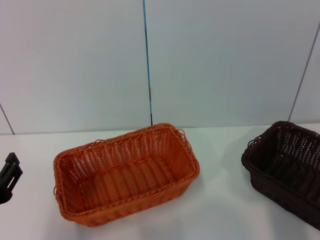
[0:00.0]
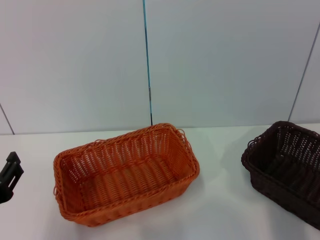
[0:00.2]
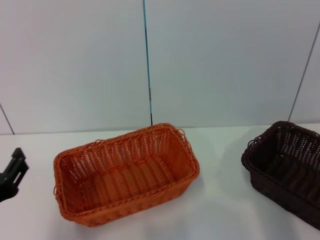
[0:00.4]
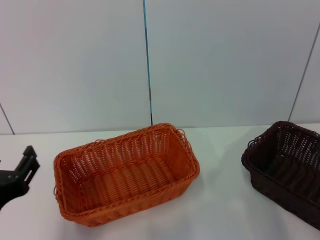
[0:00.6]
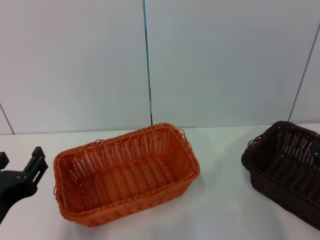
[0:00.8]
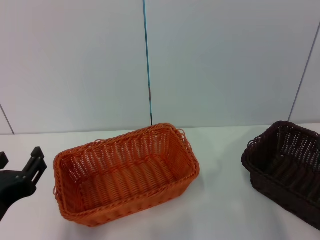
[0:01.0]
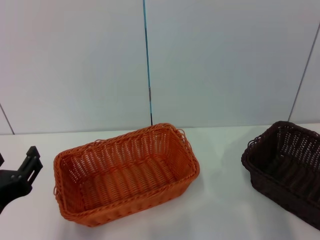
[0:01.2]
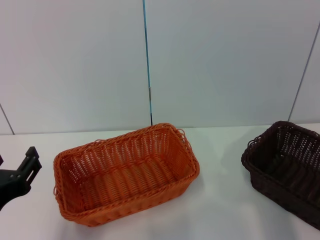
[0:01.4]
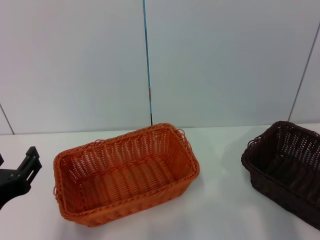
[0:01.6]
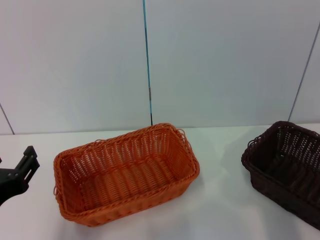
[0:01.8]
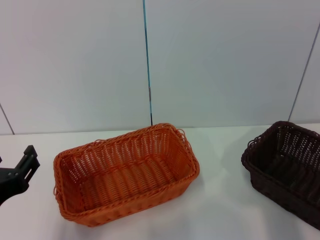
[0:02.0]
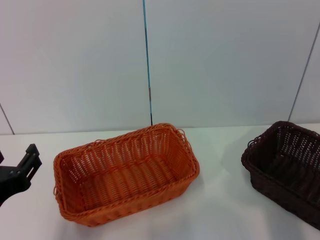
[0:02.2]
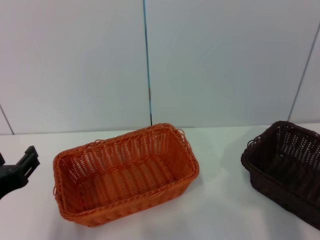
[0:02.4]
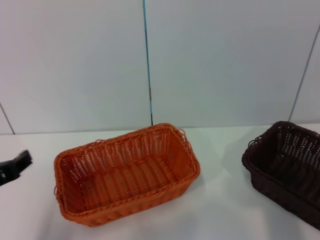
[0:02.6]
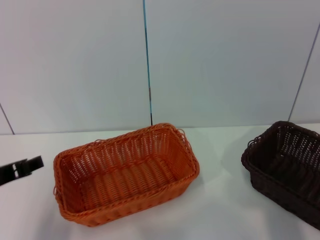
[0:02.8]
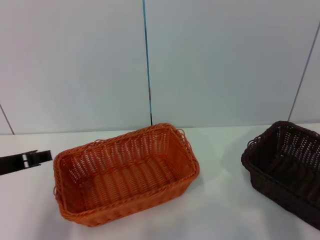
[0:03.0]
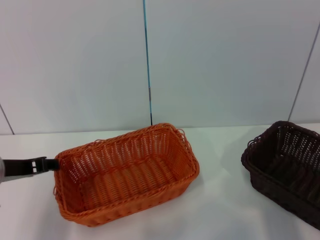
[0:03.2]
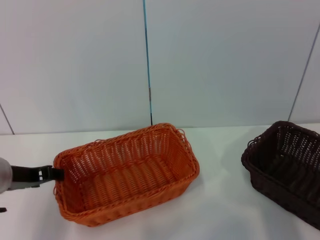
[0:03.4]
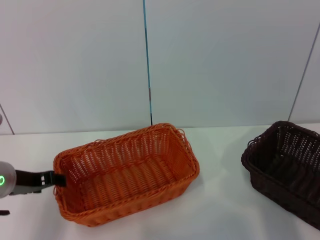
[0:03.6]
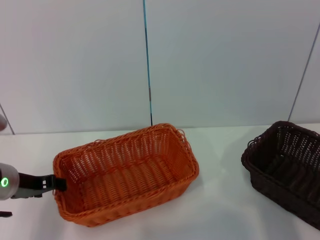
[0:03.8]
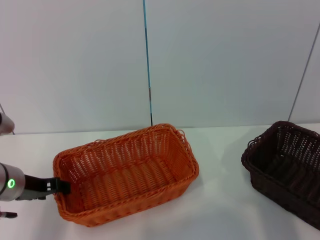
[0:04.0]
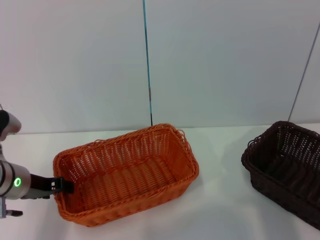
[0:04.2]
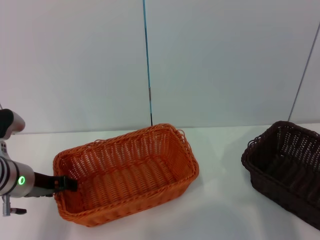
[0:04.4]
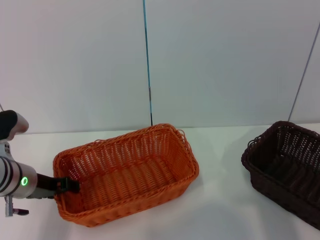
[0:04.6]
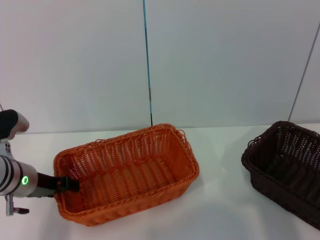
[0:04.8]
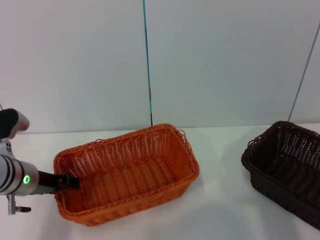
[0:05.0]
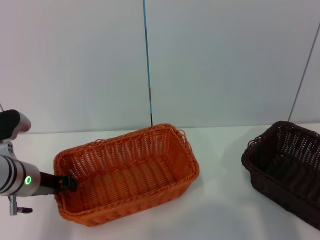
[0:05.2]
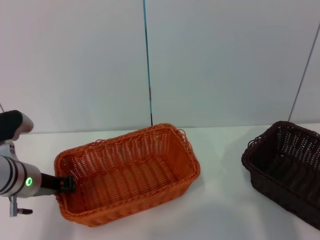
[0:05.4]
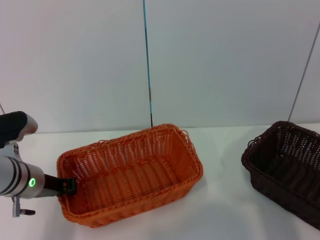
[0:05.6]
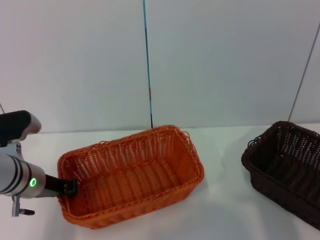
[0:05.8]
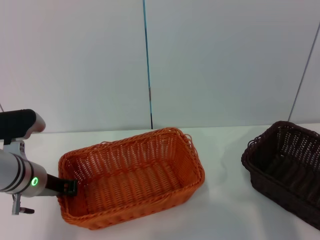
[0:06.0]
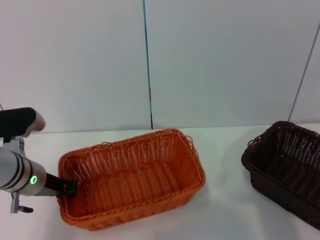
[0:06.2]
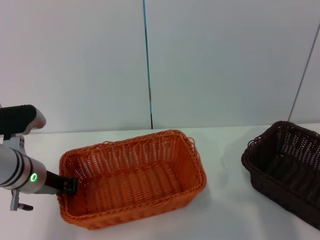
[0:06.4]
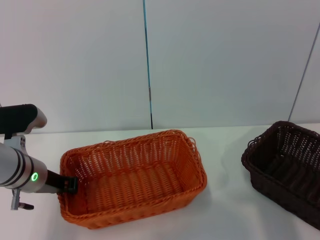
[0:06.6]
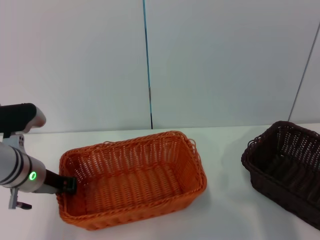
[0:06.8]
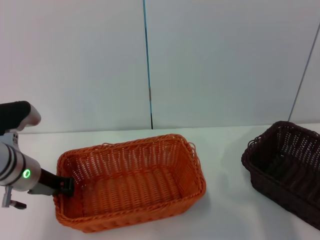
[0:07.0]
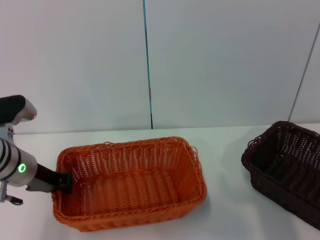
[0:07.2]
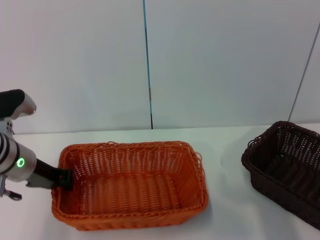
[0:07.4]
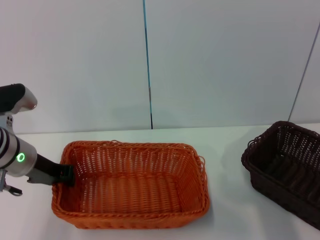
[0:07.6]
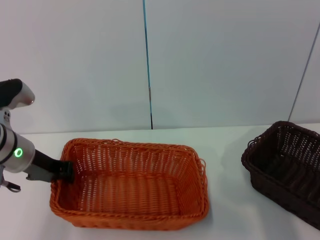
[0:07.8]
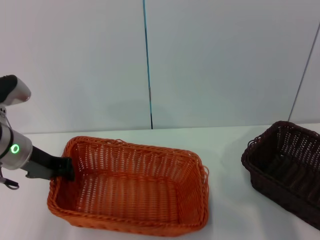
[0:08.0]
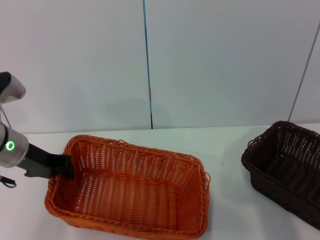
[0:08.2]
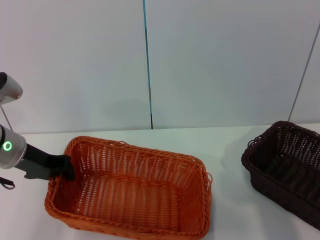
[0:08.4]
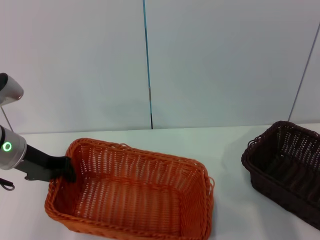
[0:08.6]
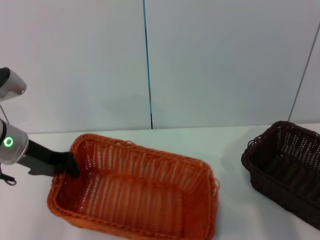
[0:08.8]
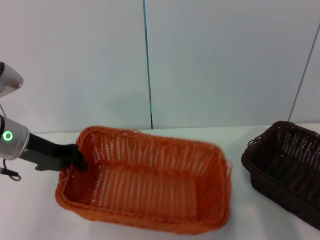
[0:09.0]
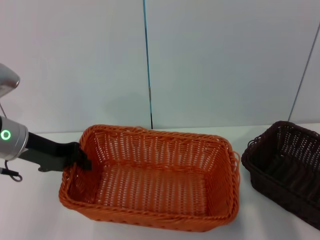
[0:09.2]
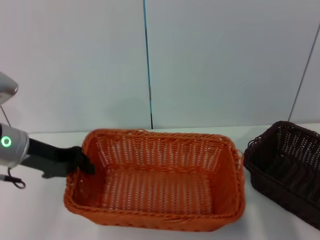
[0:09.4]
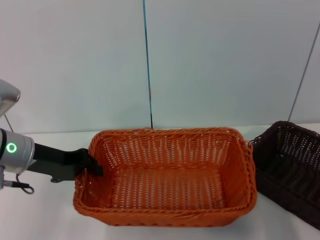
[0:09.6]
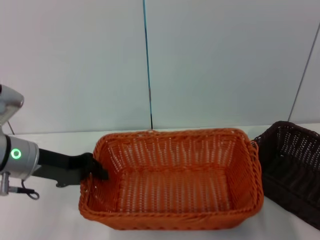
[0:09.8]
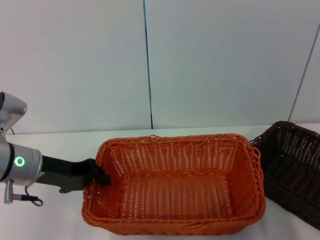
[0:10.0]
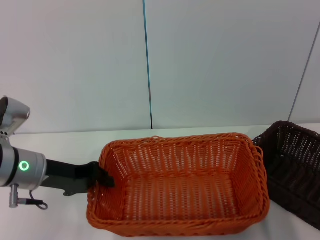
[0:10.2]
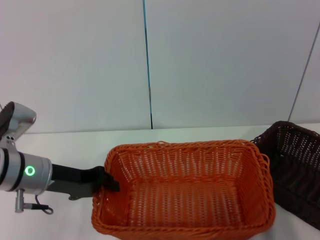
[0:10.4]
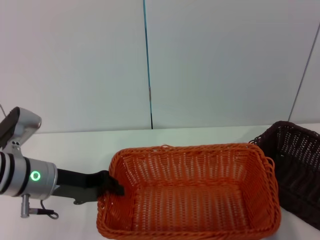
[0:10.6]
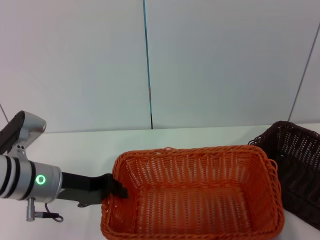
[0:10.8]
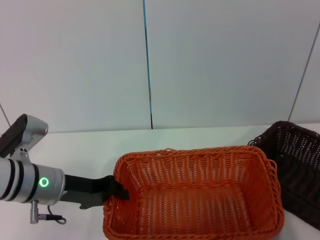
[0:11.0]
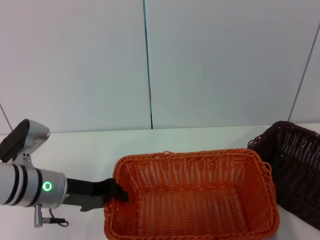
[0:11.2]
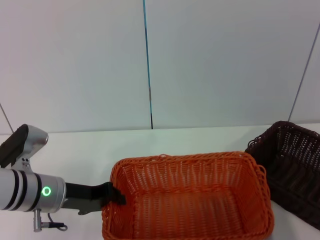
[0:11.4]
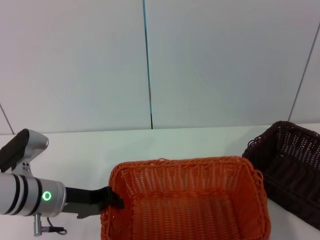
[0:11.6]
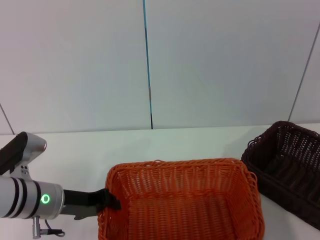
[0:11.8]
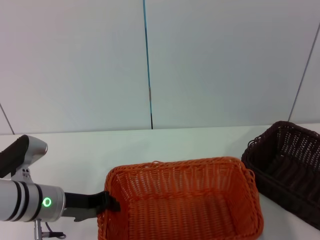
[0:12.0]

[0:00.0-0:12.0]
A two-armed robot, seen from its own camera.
Step, 0:00.0 to 0:07.2: Pick up the light basket with the left gripper.
0:00.0 to 0:01.6: The grippers stay close to where they were, moving slightly.
0:01.6 to 0:03.0: The left gripper heads forward, covering about 10 cm.
0:03.0 to 0:04.4: The left gripper moves forward and downward, approximately 10 cm.
0:04.4 to 0:06.0: The left gripper closes up.
0:06.0 to 0:07.6: There are only small adjustments of the grippers.
0:07.6 to 0:09.0: There are only small adjustments of the grippers.
0:09.0 to 0:10.4: The left gripper travels downward by about 5 cm.
0:10.4 to 0:12.0: The left gripper moves downward, roughly 5 cm.

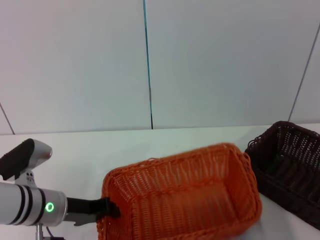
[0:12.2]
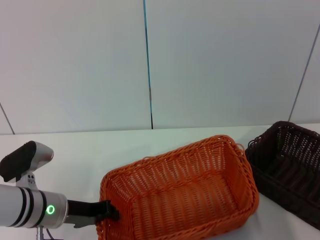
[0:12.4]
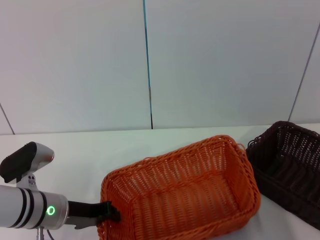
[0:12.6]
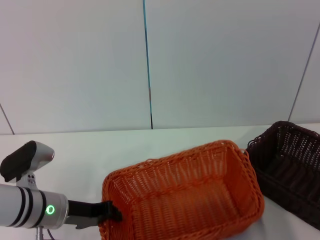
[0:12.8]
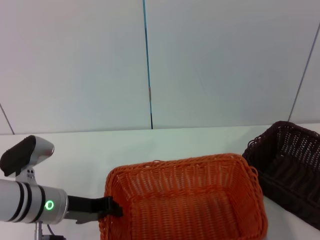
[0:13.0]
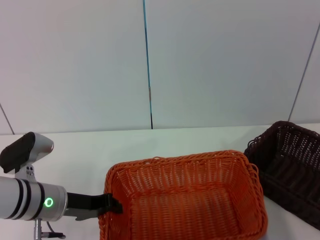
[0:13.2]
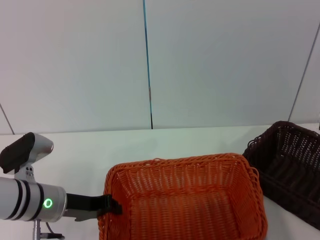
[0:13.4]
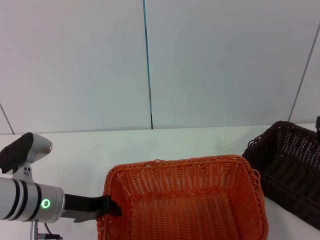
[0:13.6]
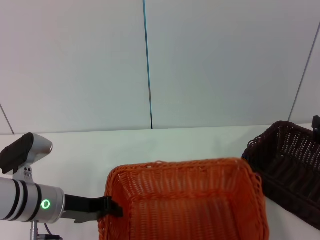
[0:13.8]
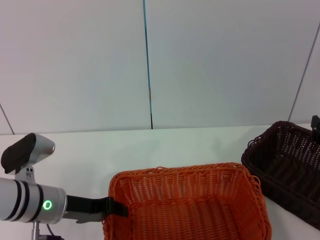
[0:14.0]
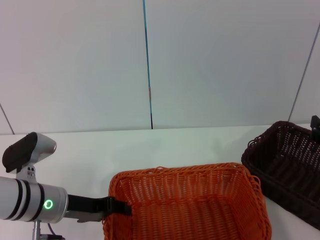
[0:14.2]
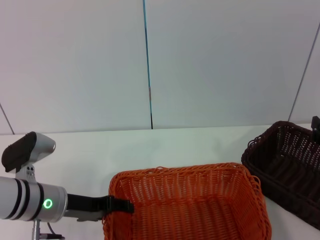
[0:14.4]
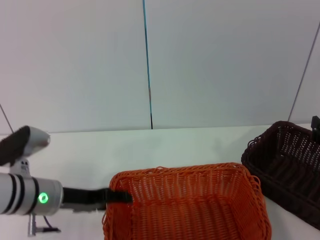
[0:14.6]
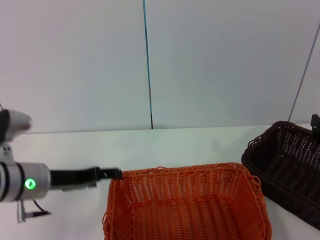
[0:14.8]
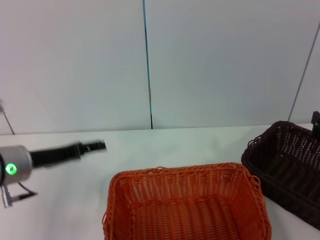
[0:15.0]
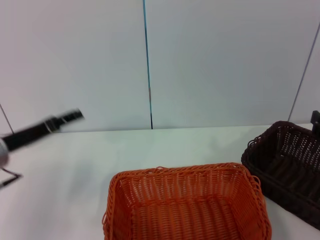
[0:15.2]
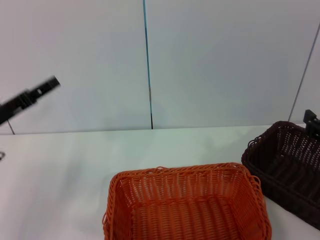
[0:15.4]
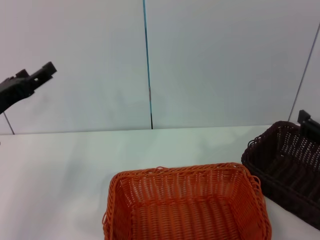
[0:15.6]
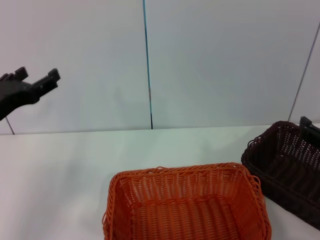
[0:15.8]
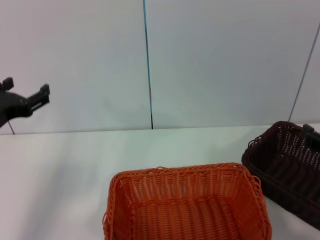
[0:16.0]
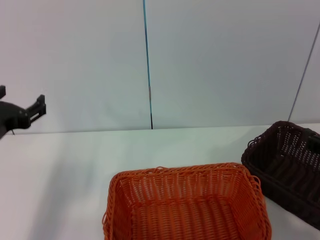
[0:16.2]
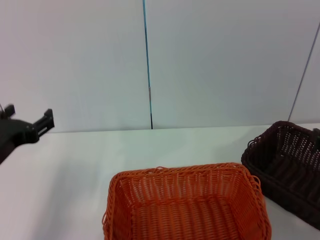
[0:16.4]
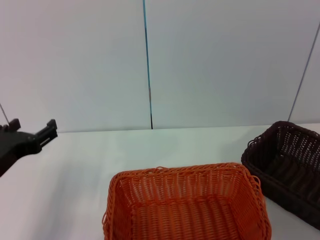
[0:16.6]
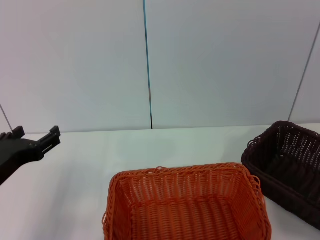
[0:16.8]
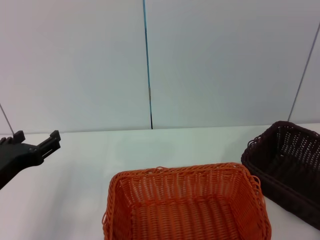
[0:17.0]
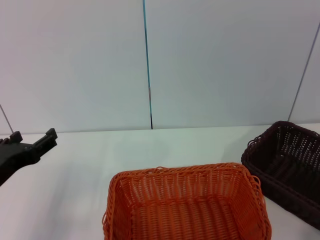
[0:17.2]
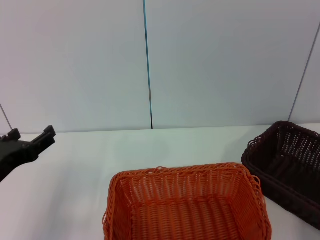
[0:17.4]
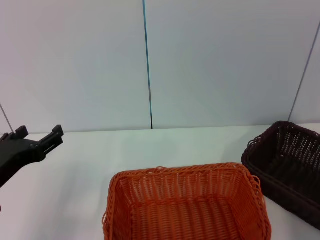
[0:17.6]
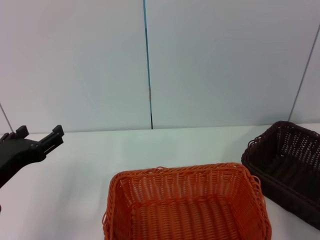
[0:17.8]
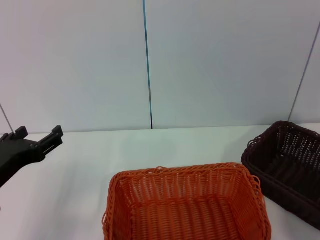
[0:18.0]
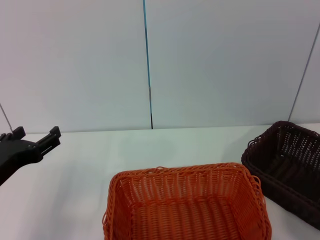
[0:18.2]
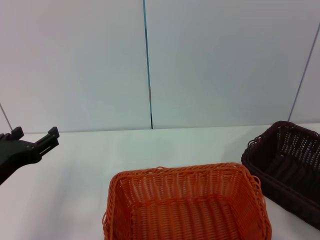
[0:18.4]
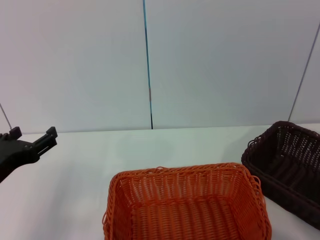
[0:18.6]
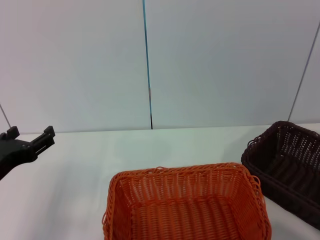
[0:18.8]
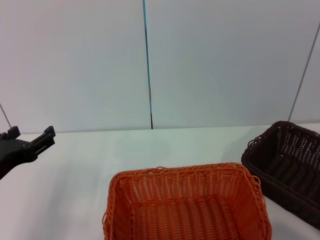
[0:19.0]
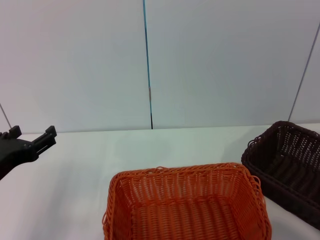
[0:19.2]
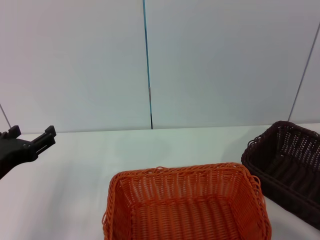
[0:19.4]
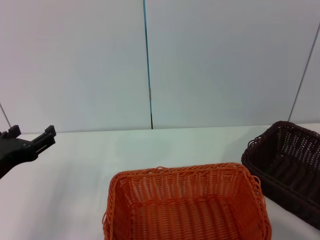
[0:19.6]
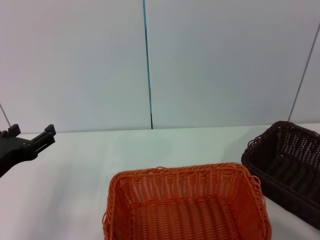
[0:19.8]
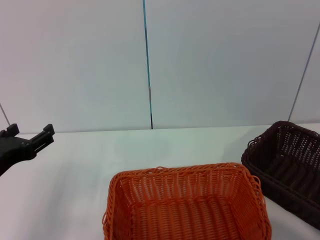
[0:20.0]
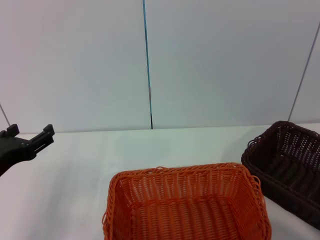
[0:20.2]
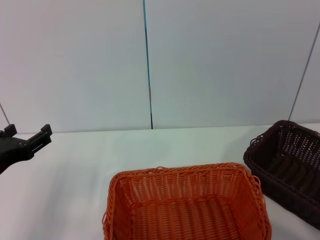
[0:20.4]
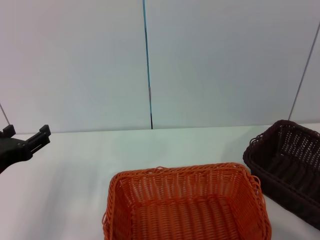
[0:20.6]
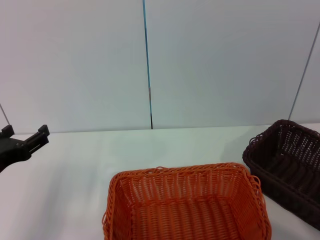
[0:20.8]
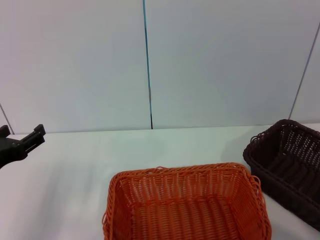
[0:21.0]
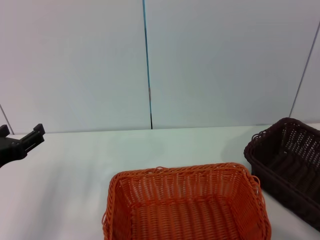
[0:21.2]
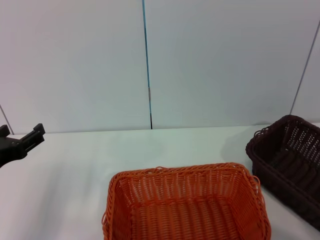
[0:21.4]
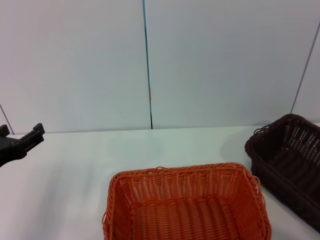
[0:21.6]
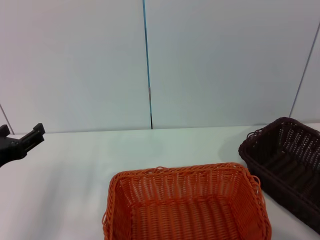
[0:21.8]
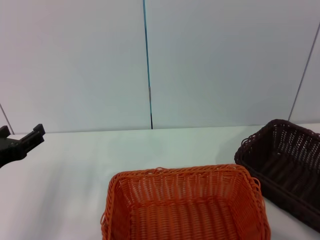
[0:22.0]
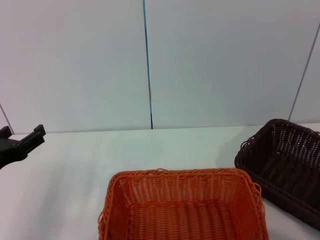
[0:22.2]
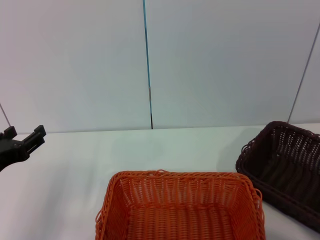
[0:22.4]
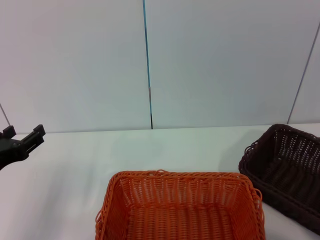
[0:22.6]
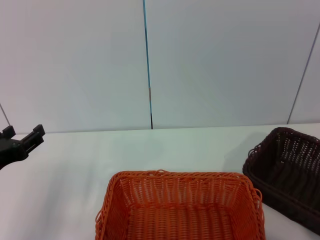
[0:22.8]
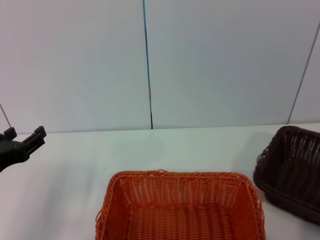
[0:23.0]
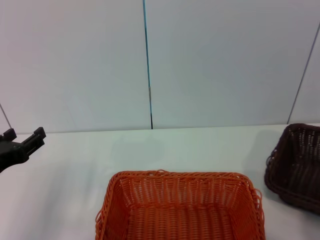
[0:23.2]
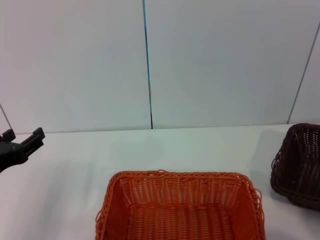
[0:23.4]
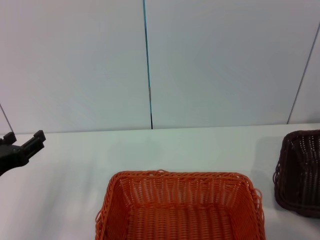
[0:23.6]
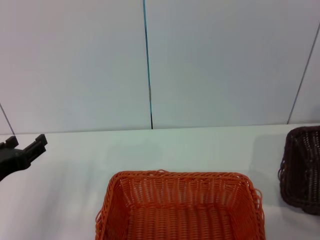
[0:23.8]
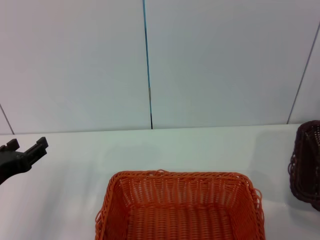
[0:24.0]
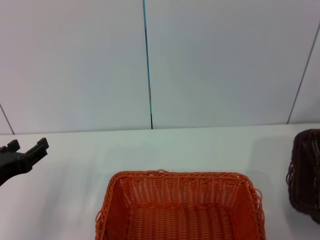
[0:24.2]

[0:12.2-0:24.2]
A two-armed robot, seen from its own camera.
Step, 0:14.2 to 0:22.8: Pick up the dark basket with the right gripper.
0:12.2 to 0:13.8: The grippers stay close to where they were, moving slightly.
0:13.8 to 0:15.2: The left gripper travels upward and to the left by roughly 10 cm, and opens up.
0:15.2 to 0:16.6: The left gripper shifts roughly 5 cm backward.
0:19.8 to 0:21.2: The grippers stay close to where they were, moving slightly.
0:21.2 to 0:22.6: The right gripper closes.
0:22.6 to 0:24.2: The right gripper heads upward, covering some 15 cm.
